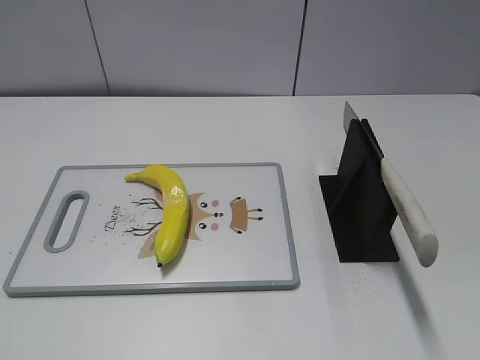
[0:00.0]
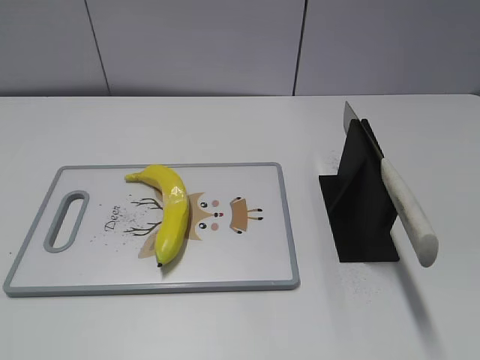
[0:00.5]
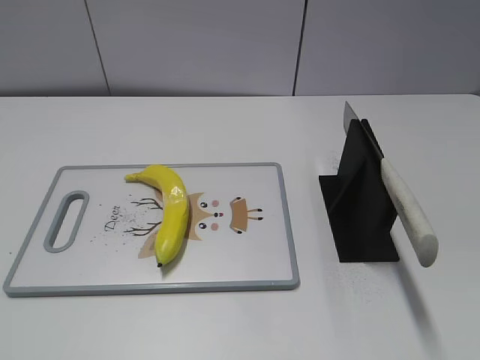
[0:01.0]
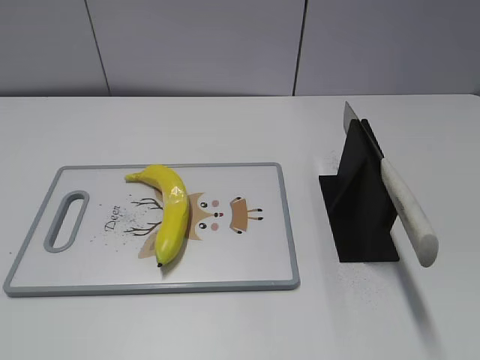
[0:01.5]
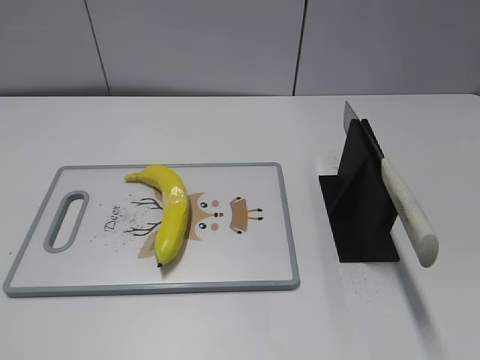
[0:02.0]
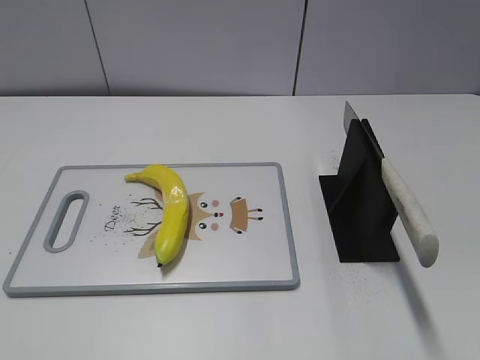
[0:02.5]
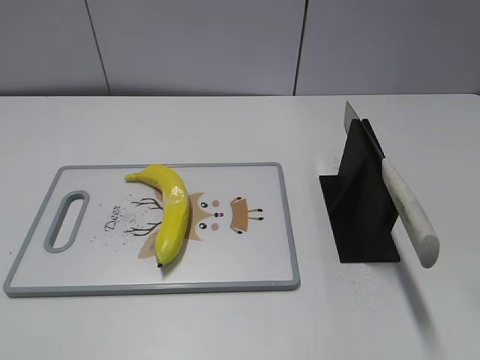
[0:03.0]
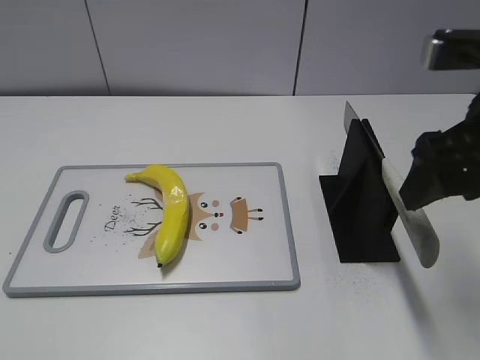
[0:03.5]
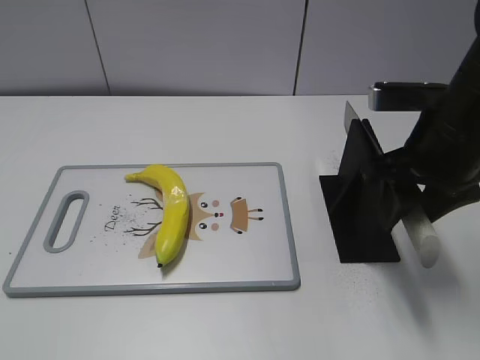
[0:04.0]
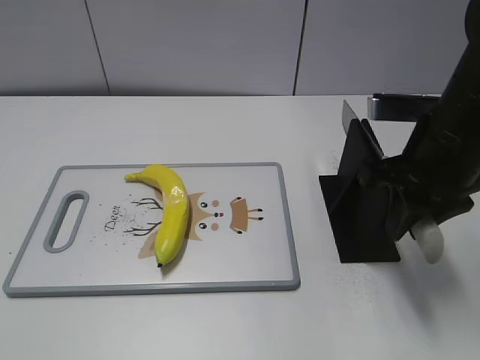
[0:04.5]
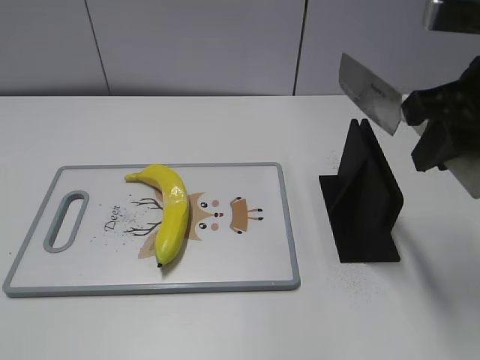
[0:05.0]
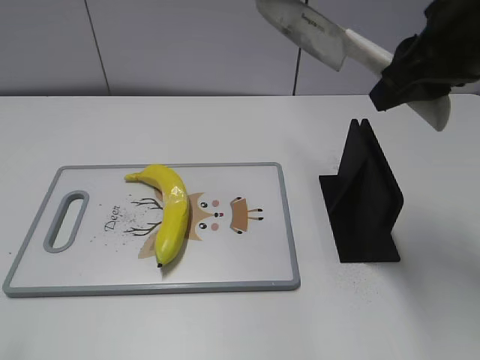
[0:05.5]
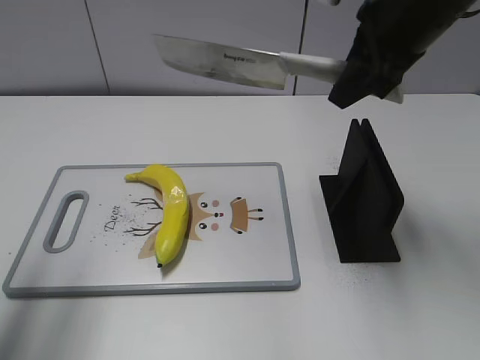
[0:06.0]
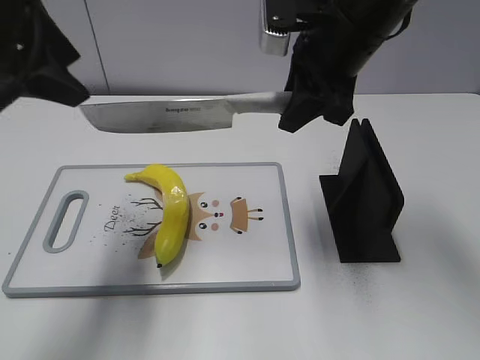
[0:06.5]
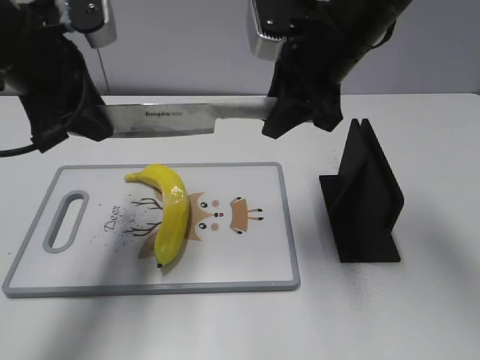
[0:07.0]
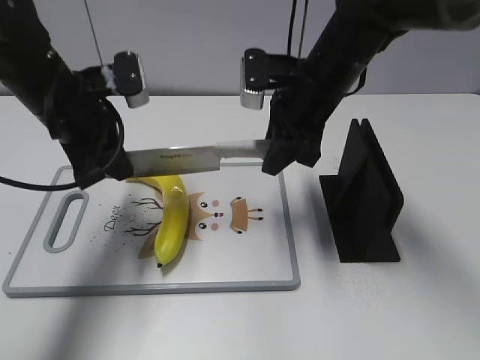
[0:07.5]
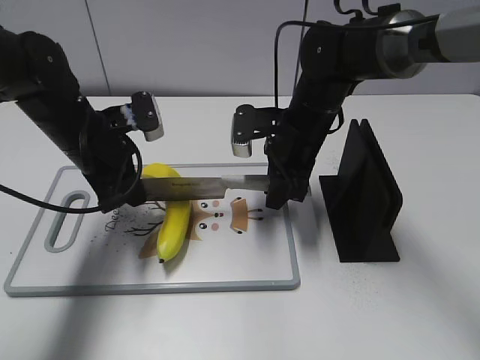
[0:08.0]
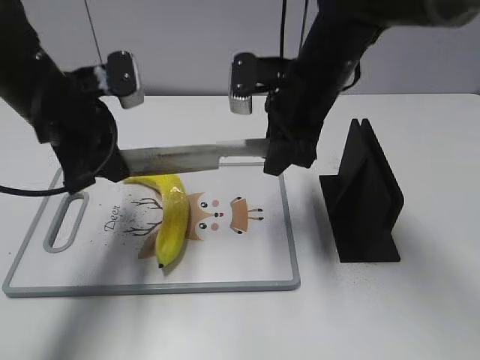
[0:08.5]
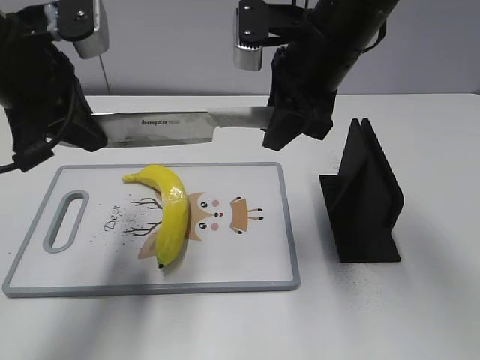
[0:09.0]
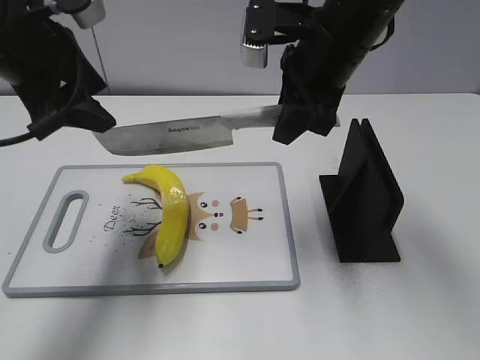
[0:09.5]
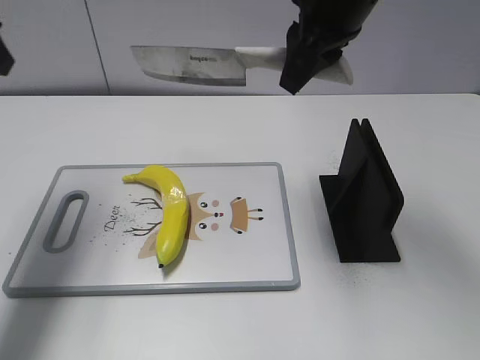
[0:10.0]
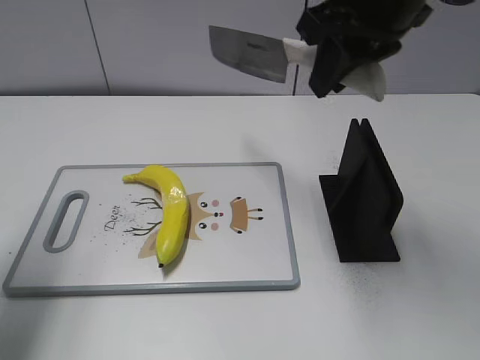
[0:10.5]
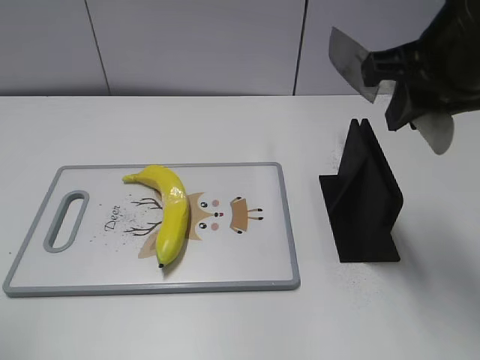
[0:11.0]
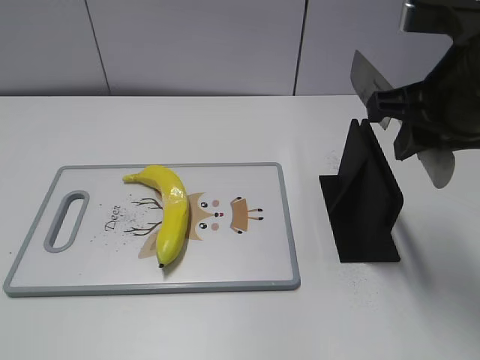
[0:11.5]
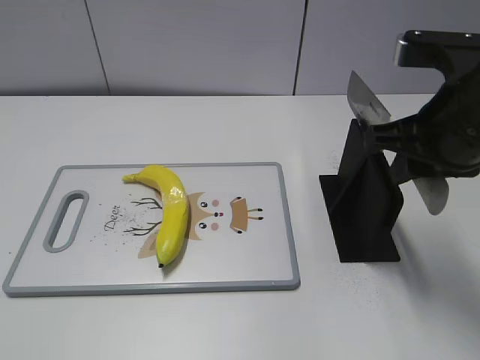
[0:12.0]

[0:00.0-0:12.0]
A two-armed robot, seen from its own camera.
Task of the whole recording: cut plastic banana.
Step, 0:00.0 to 0:05.5: Grab the knife handle with your right hand.
Step, 0:06.0 to 0:08.5: Lift the knife with your right hand.
Step, 0:09.0 to 0:10.0: Cut the banana with your right hand.
Step, 0:10.5 to 0:11.0: Lift the knife with your right hand.
0:02.0 to 0:04.0: The right gripper goes approximately 25 cm forward, and closes.
0:04.0 to 0:06.0: The right gripper moves upward and forward, approximately 10 cm, and closes its fingers. Meanwhile the left gripper is displaced forward by approximately 20 cm.
0:06.0 to 0:08.0: The right gripper moves downward, some 20 cm, while the left gripper moves downward, forward and to the right, approximately 30 cm, and closes up.
0:08.0 to 0:10.0: The right gripper shifts some 20 cm upward; the left gripper is displaced upward and to the left by roughly 20 cm, and opens.
0:10.0 to 0:12.0: The right gripper goes approximately 15 cm backward, to the right and downward. Meanwhile the left gripper goes roughly 35 cm backward.

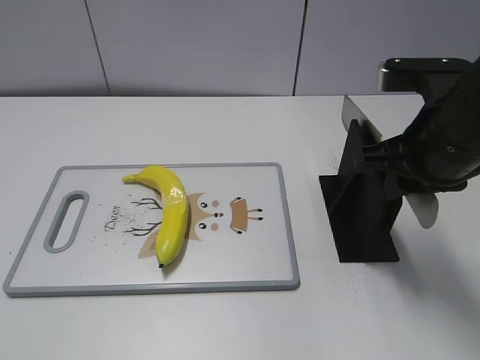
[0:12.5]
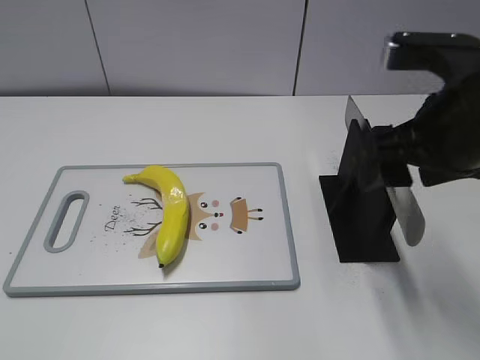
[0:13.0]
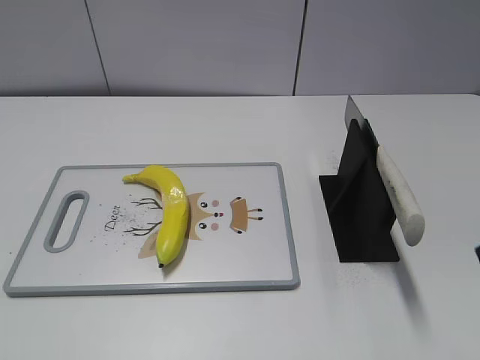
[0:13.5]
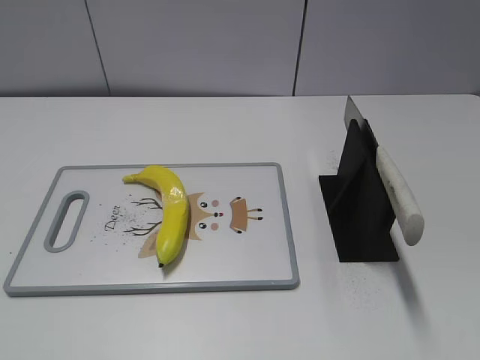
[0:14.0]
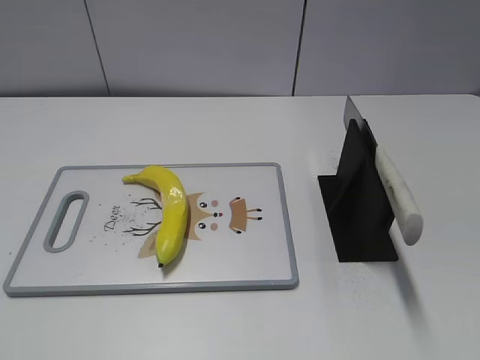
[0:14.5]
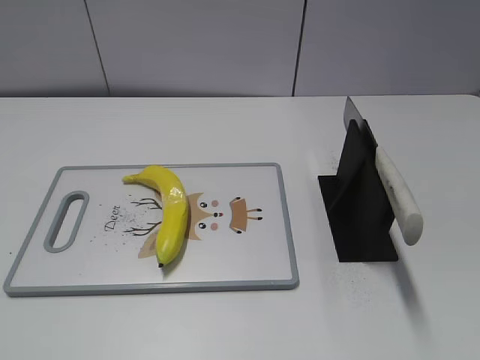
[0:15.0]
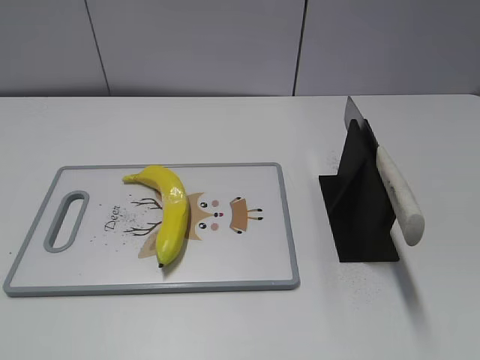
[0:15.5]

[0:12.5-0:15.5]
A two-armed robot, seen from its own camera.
Task of the whole recording: cut plastic banana.
Step, 0:12.5 to 0:15.5: Place the knife on the storage rack with your right hand.
0:12.5 to 0:14.0: The right gripper shifts approximately 25 cm backward and to the right, and opens.
